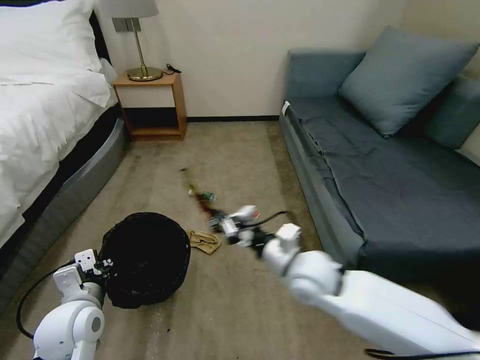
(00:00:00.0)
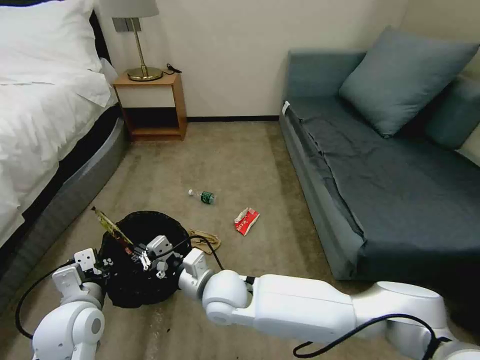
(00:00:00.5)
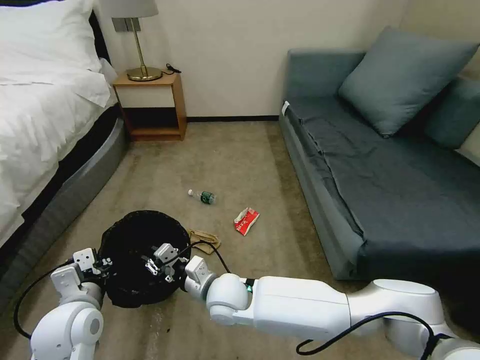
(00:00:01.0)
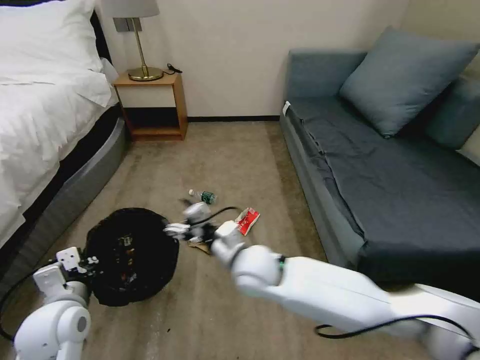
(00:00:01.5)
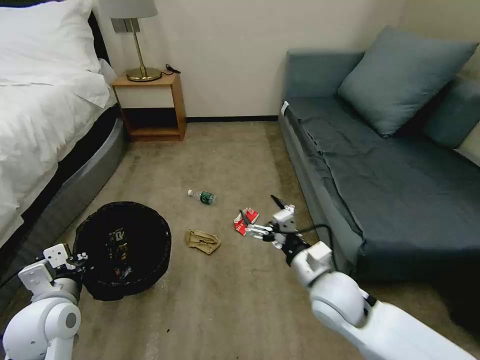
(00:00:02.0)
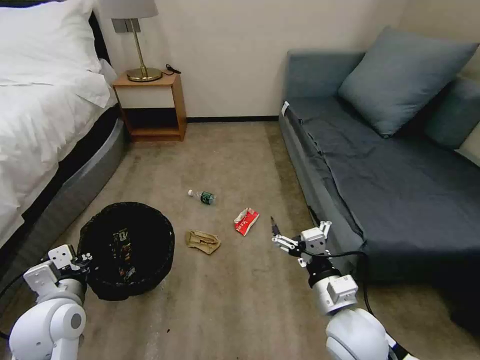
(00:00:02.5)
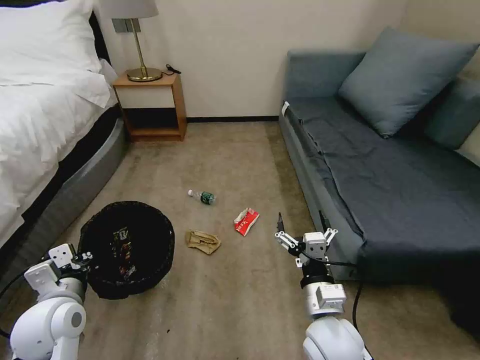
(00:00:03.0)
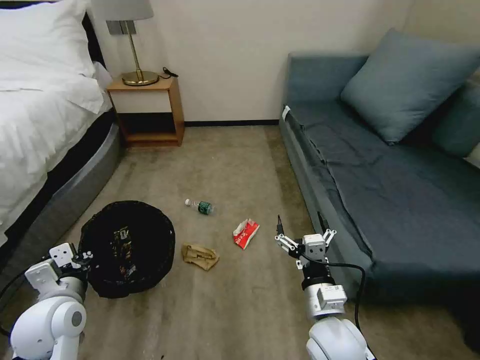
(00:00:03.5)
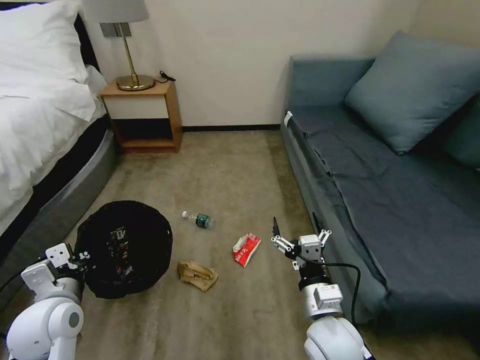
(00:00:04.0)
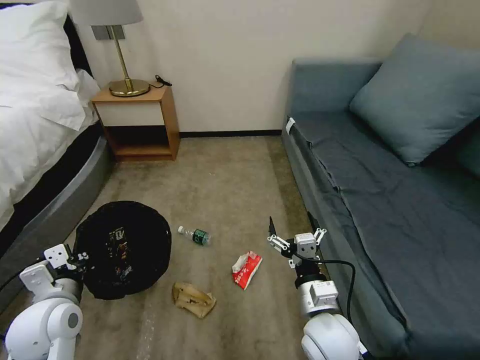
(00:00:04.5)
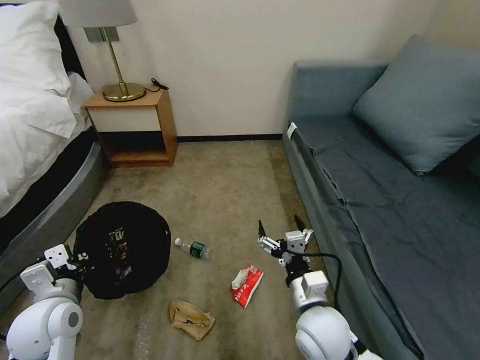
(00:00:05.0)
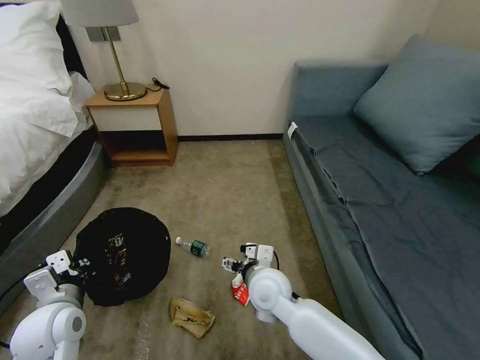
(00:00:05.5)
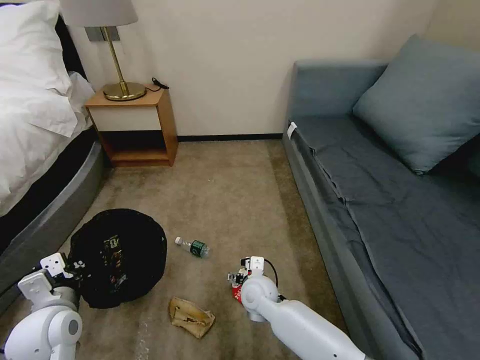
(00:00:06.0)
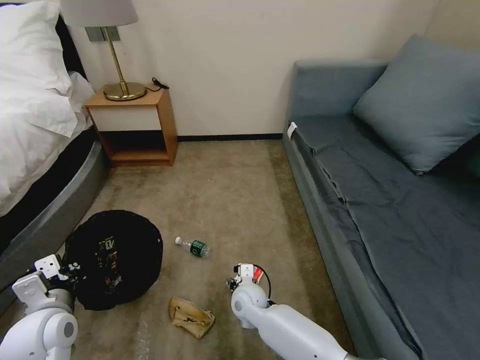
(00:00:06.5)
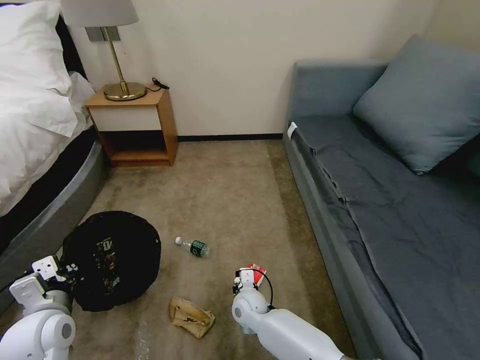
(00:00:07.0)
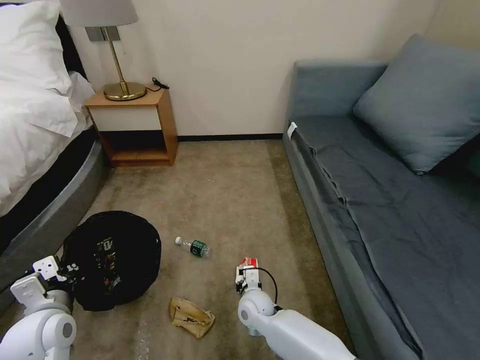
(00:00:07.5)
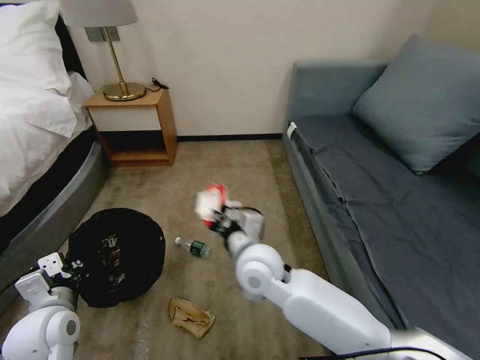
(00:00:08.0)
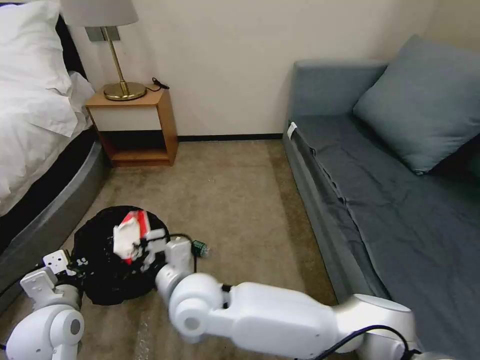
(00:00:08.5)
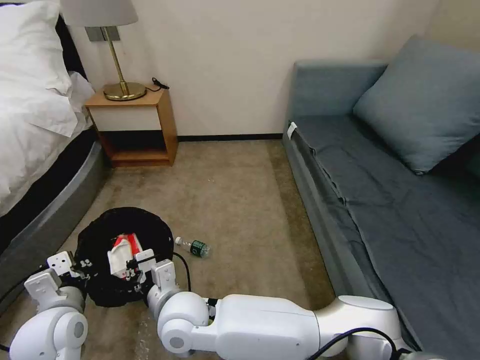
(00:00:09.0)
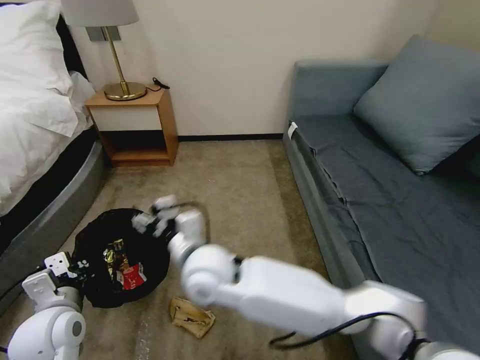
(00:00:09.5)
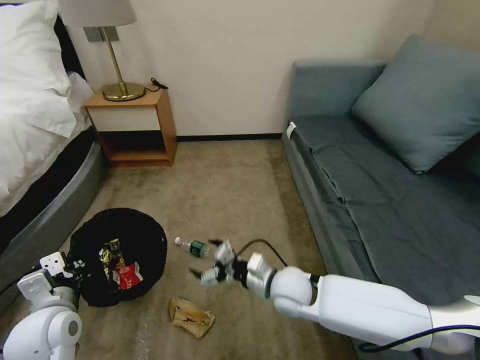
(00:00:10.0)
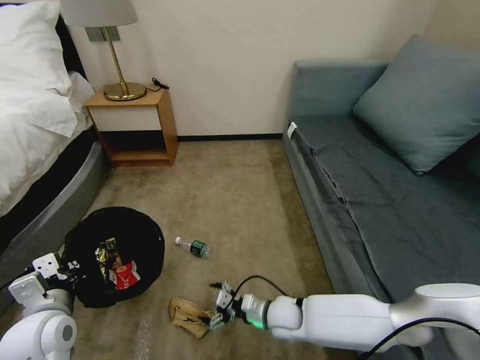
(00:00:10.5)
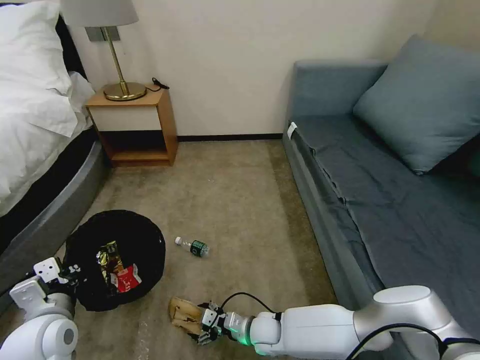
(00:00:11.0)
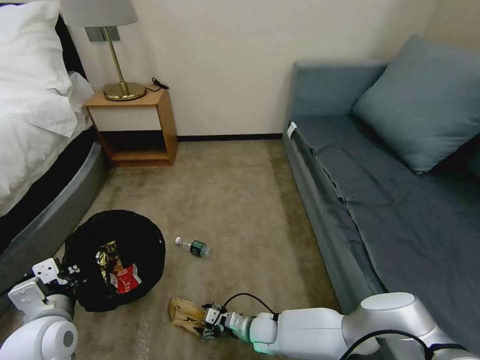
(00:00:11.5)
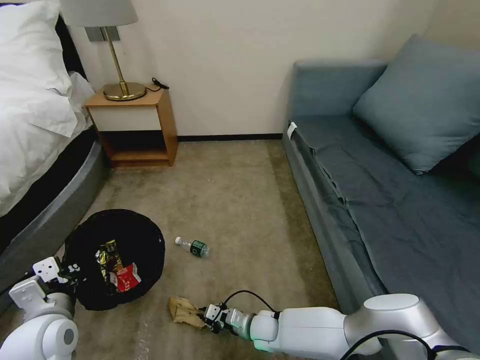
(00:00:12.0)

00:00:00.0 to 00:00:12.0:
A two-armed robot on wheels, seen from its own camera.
Task of the whole recording: Pick up the trash bin, then pick up the garbage on the floor and place it into the trash bin.
00:00:00.0 to 00:00:02.0: The right gripper travels to the left and back again, roughly 20 cm each way, and opens its fingers.
00:00:02.0 to 00:00:04.0: The right gripper shifts about 5 cm backward.
00:00:04.0 to 00:00:06.0: The right gripper shifts roughly 20 cm forward, to the left and downward.
00:00:06.0 to 00:00:08.0: The right gripper is displaced upward by approximately 20 cm, and closes up.
00:00:08.0 to 00:00:10.0: The right gripper moves downward and to the right, approximately 15 cm, and opens.
00:00:10.0 to 00:00:12.0: The right gripper heads downward, covering approximately 20 cm, and closes.

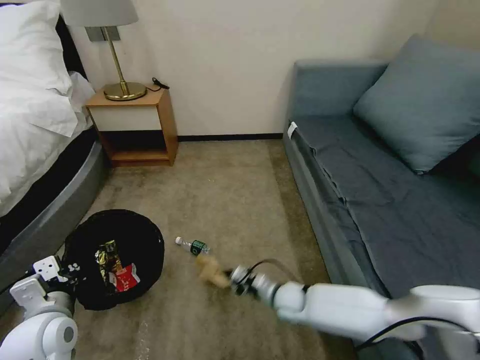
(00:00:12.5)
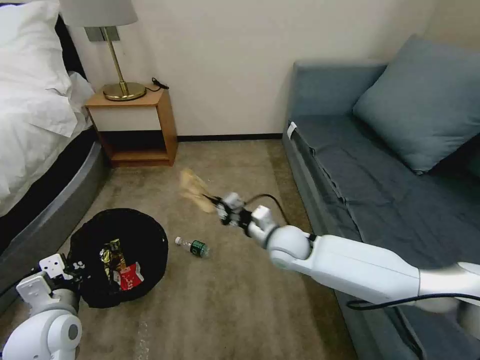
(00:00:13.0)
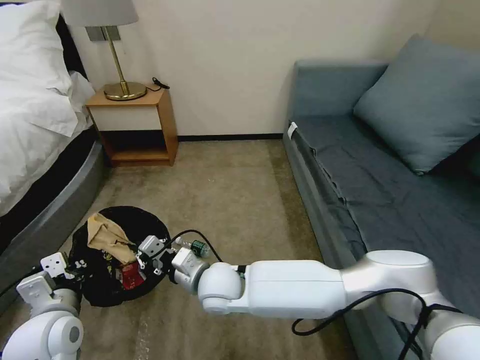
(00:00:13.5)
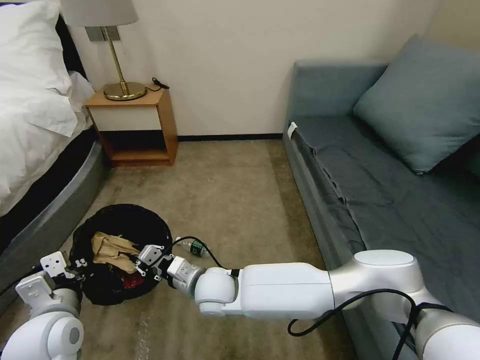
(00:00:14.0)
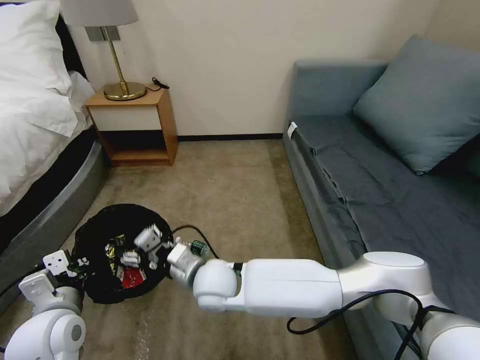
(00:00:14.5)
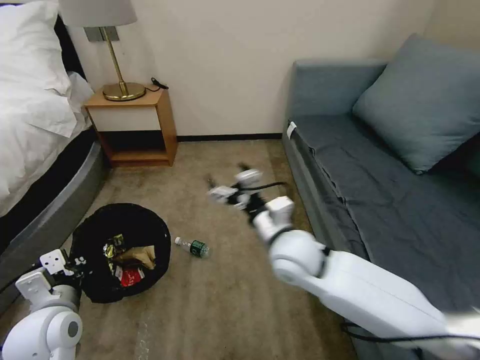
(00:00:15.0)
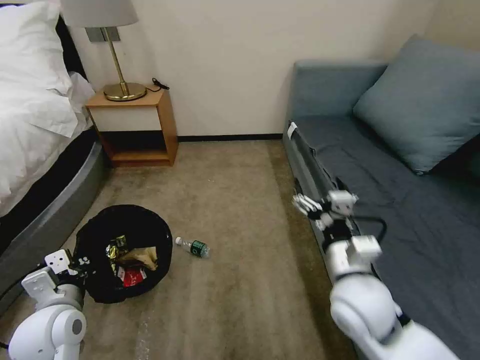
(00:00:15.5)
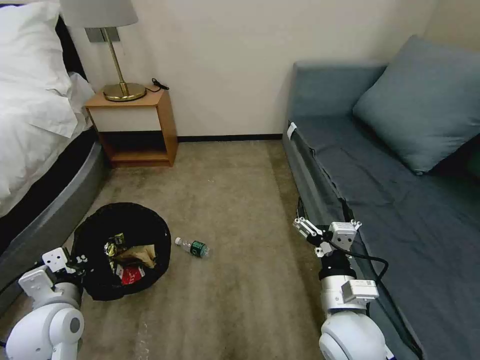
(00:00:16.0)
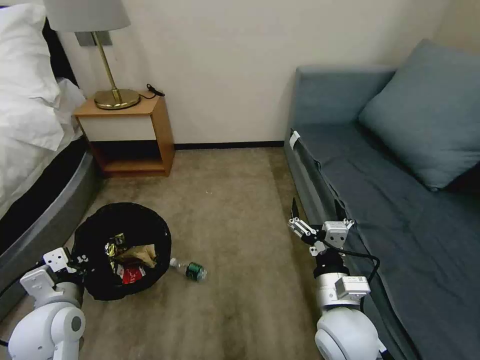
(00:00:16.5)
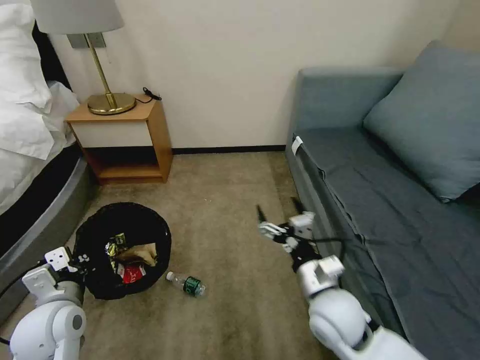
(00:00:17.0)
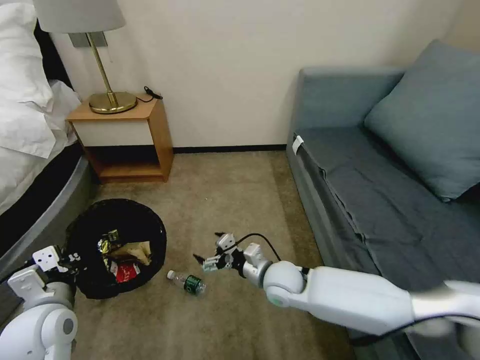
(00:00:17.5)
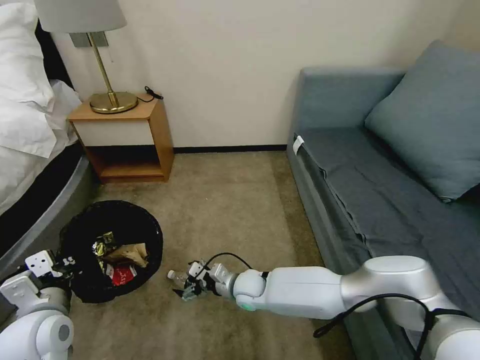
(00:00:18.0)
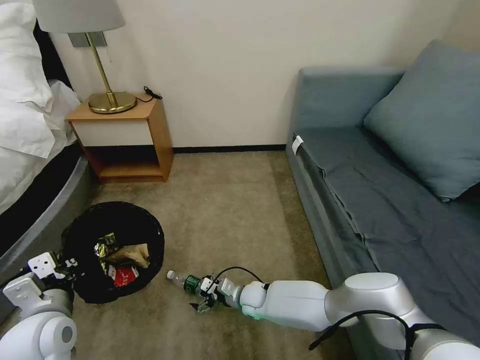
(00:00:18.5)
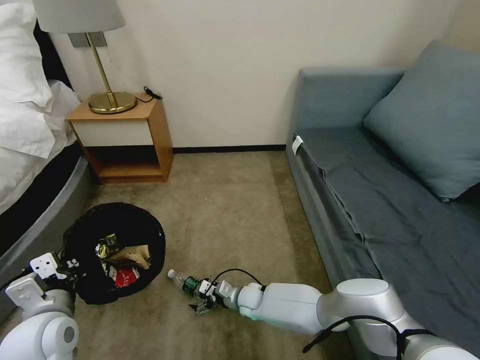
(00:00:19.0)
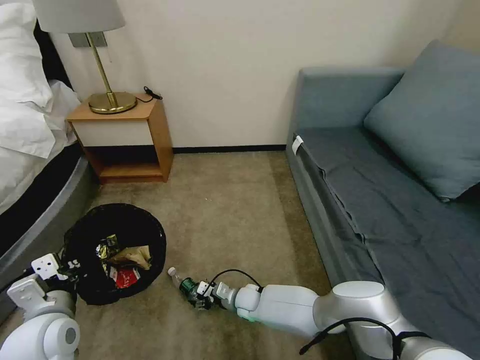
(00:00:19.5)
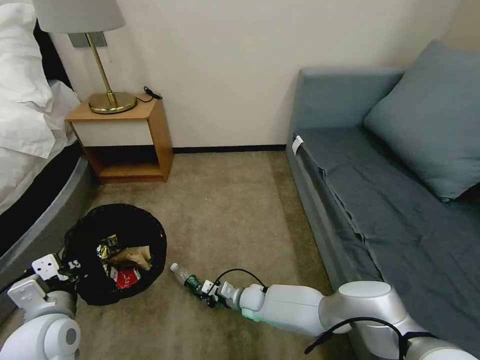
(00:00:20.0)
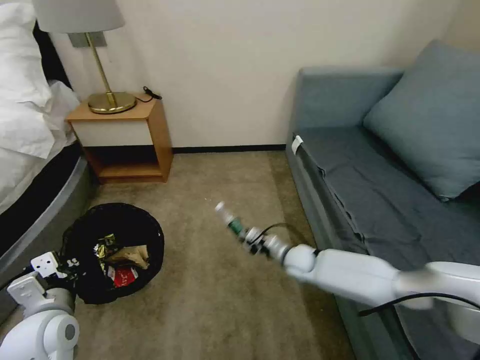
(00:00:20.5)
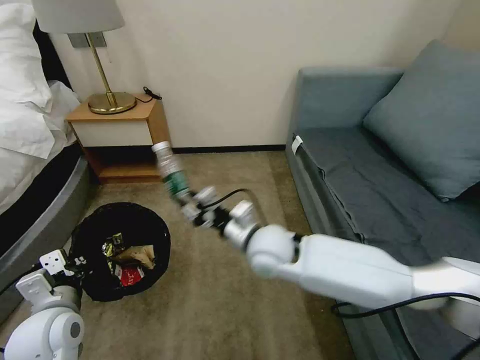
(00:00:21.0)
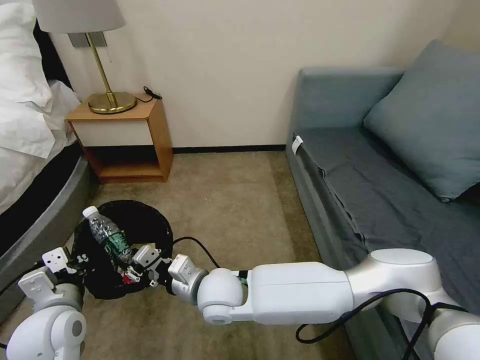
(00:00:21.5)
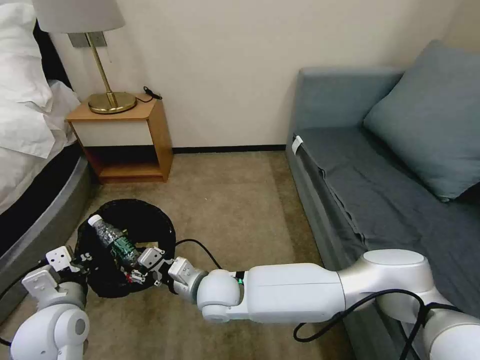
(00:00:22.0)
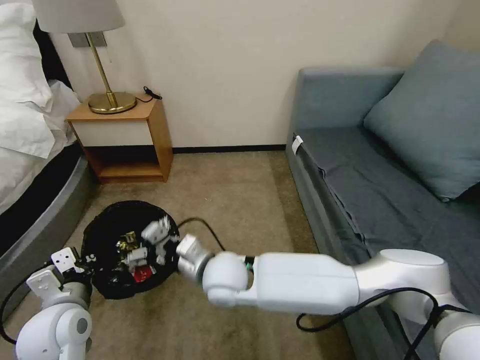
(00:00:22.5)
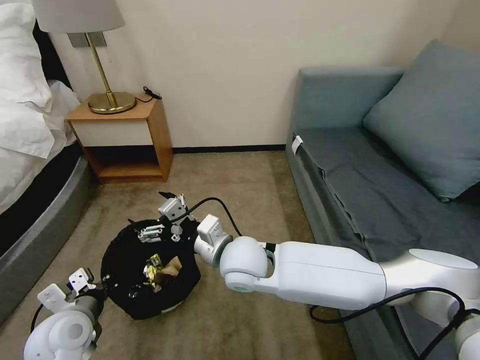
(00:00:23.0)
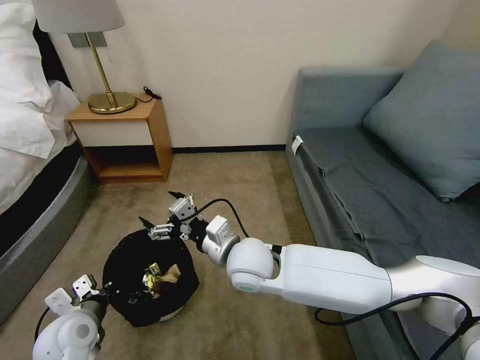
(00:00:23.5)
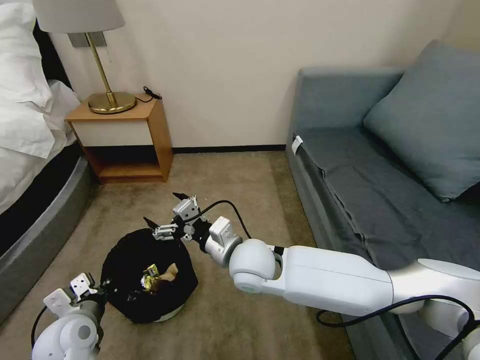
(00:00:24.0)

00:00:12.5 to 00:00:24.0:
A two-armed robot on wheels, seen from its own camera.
Task of the whole recording: Pick up the trash bin, then pick up the garbage on the floor and place it into the trash bin.
00:00:12.5 to 00:00:14.5: The right gripper moves up and down over some 20 cm, changing direction 2 times, and opens its fingers.
00:00:14.5 to 00:00:16.5: The right gripper travels to the right and backward by roughly 25 cm.
00:00:16.5 to 00:00:18.5: The right gripper goes approximately 30 cm downward, forward and to the left.
00:00:18.5 to 00:00:20.0: The right gripper closes up.
00:00:20.0 to 00:00:22.0: The right gripper goes roughly 25 cm upward and to the left.
00:00:22.0 to 00:00:24.0: The right gripper moves upward and to the right, approximately 10 cm, and opens up; the left gripper shifts roughly 5 cm downward.

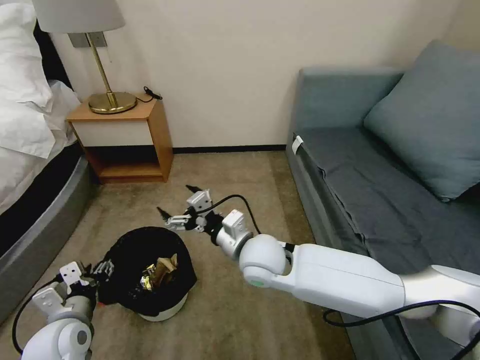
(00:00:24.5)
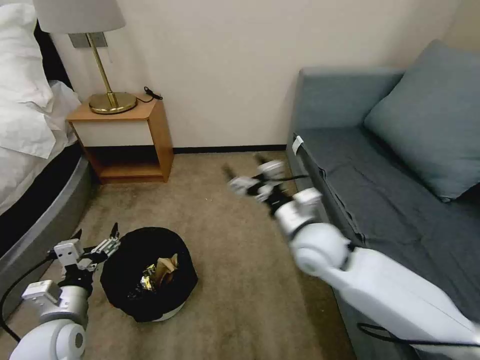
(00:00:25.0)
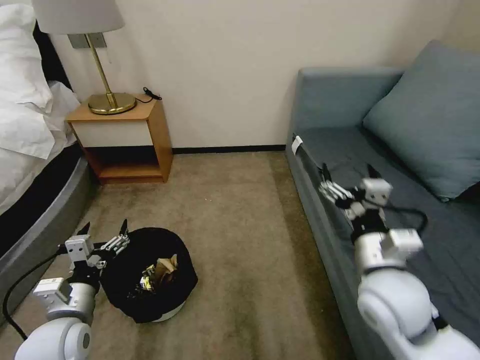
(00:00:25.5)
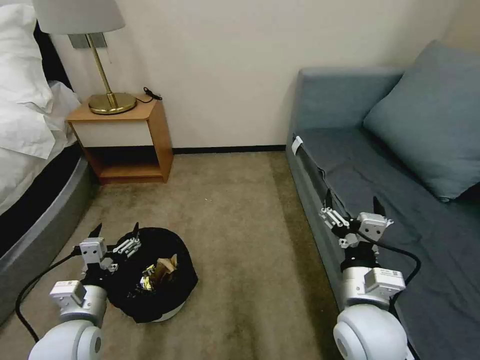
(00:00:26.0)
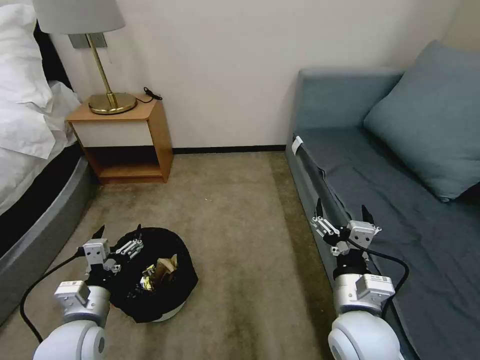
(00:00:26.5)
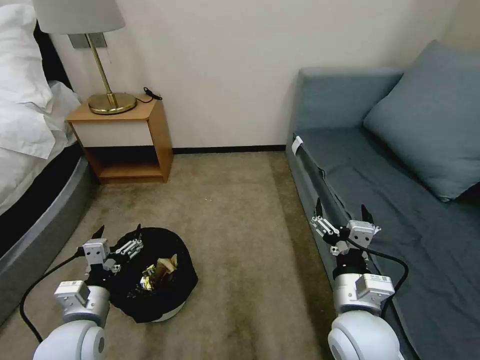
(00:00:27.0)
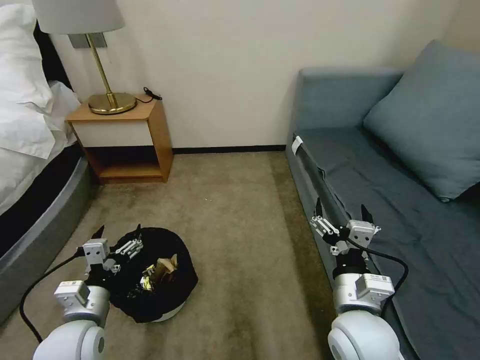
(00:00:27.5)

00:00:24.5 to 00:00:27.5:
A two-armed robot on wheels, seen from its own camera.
Task of the whole recording: Pick up the trash bin, then pick up the garbage on the floor and place it into the trash bin.
00:00:24.5 to 00:00:26.0: The left gripper opens up, while the right gripper moves to the right and backward, roughly 20 cm.
00:00:26.0 to 00:00:27.5: There are only small adjustments of the grippers.
